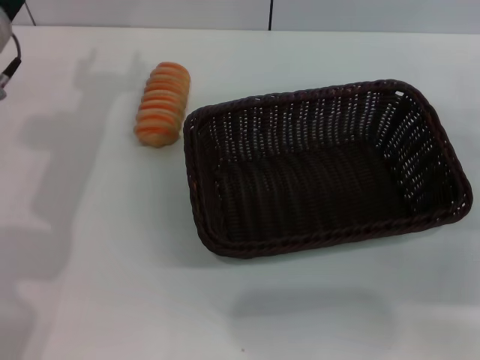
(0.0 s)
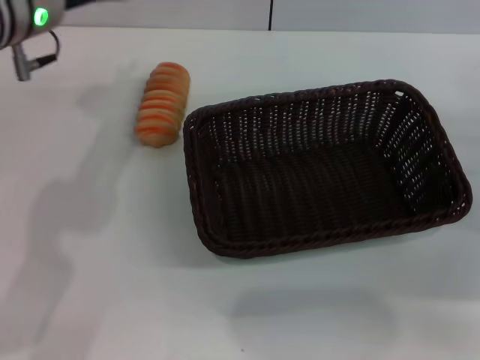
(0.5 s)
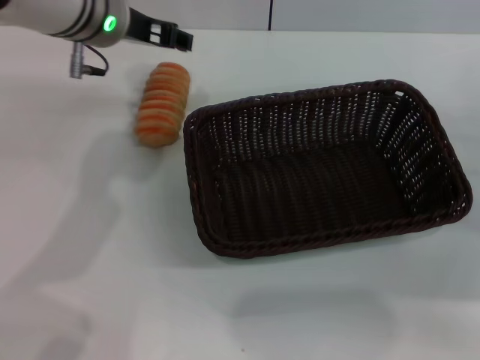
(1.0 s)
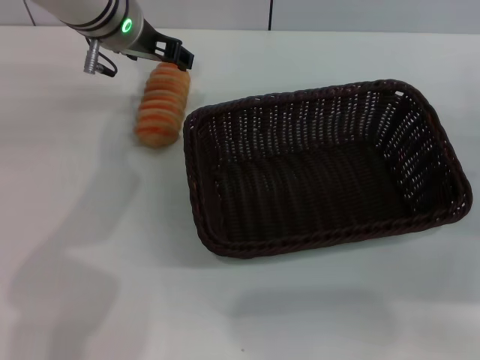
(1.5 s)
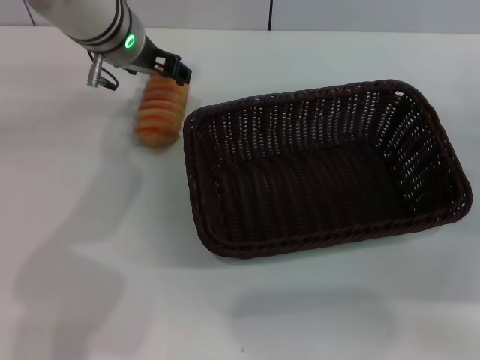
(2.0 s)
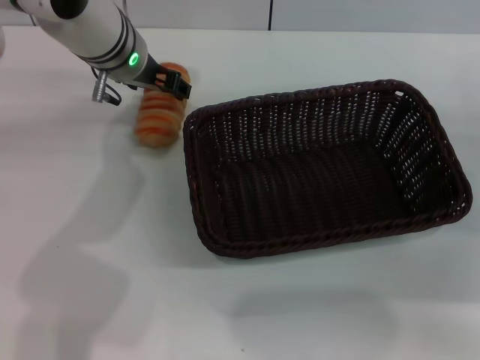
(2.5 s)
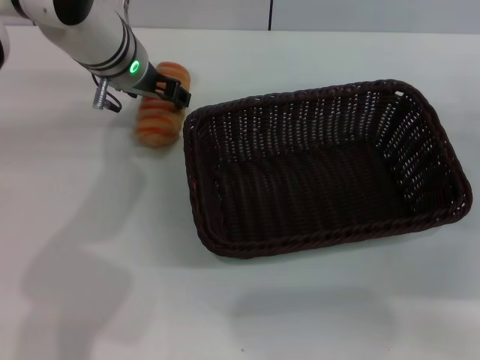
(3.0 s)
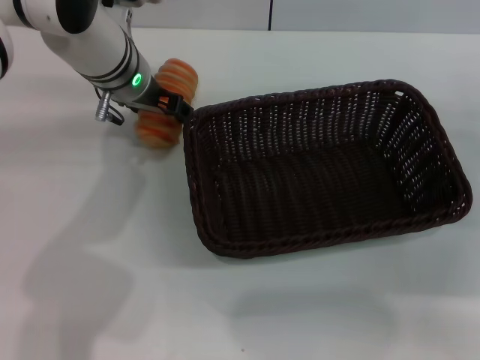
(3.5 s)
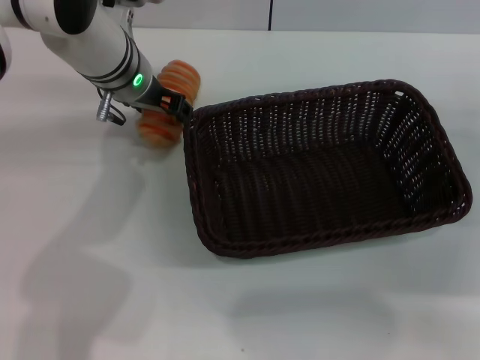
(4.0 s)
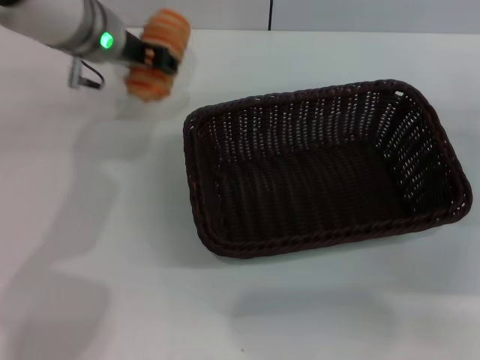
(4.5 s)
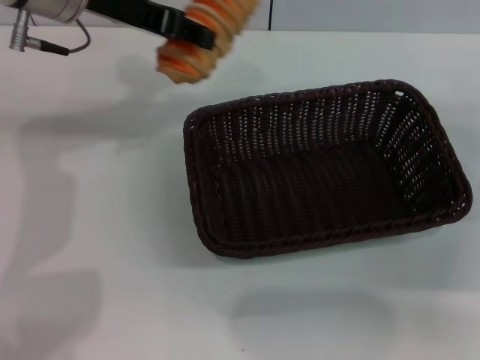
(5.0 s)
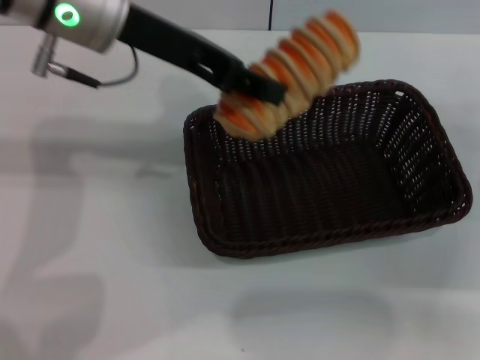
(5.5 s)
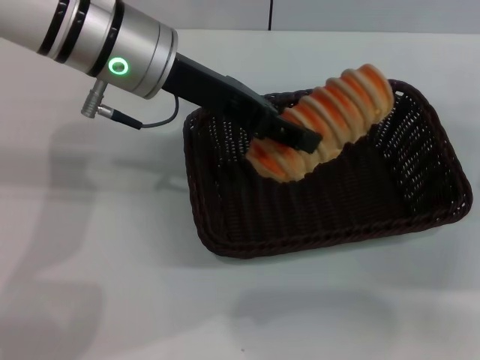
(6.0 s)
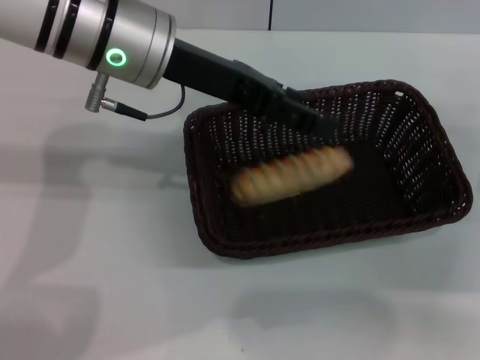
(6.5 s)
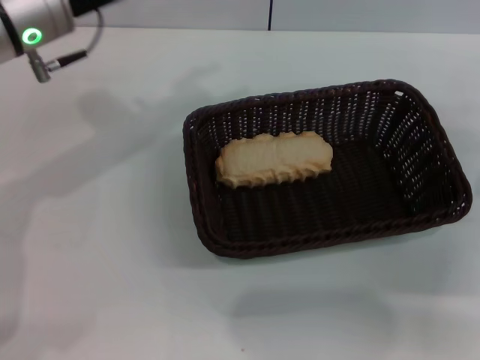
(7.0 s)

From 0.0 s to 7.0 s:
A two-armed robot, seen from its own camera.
Step, from 0.0 s to 4.5 s: Pick up the long bread with the left gripper.
Step, from 5.0 s to 6.5 s: Place the long bread into the dark basket with the left gripper.
From 0.0 s to 2.0 s: The left gripper heads forward and to the right, covering roughly 15 cm.
From 2.0 s to 3.5 s: There are only small adjustments of the grippers.
From 3.5 s to 5.0 s: The left gripper goes about 10 cm upward, and closes up.
From 5.0 s to 7.0 s: The left gripper goes to the right and returns, about 5 cm each way, and opens up.

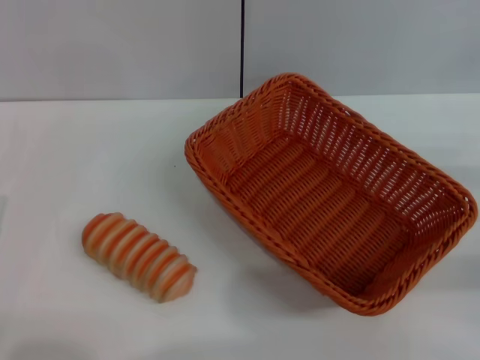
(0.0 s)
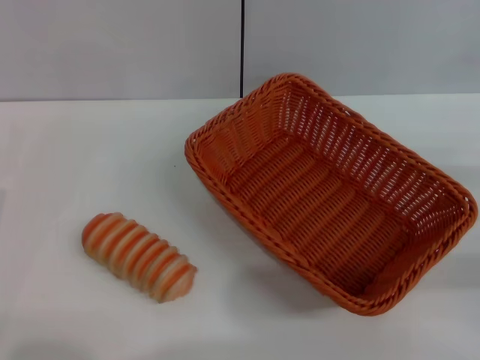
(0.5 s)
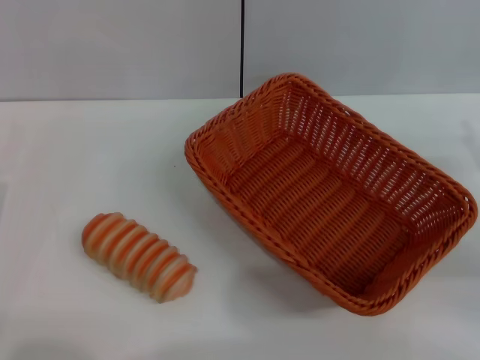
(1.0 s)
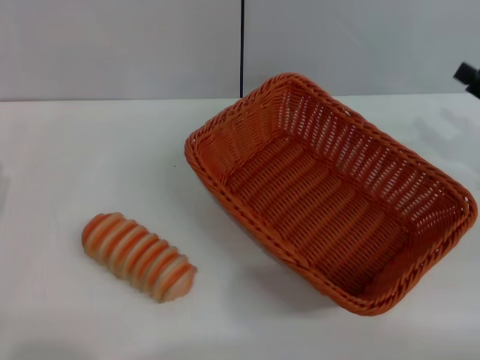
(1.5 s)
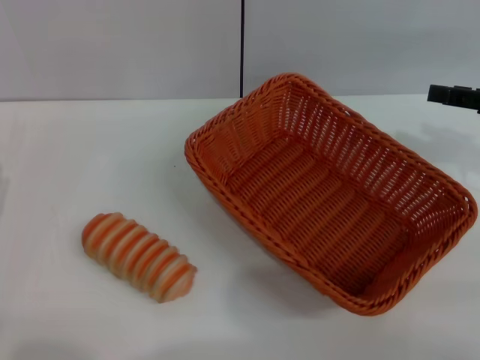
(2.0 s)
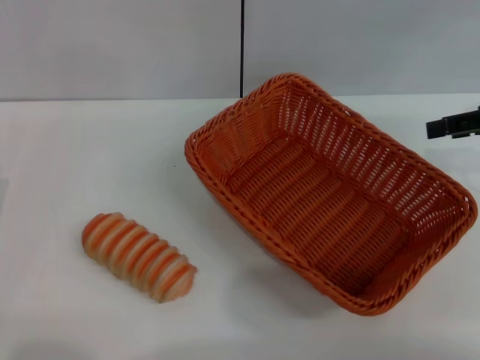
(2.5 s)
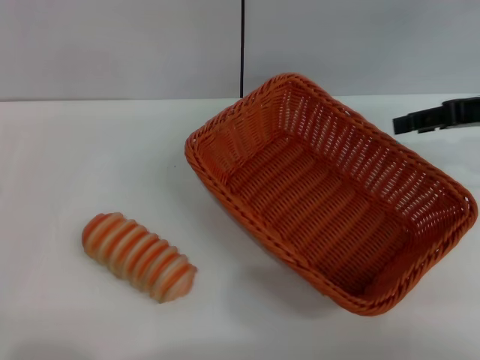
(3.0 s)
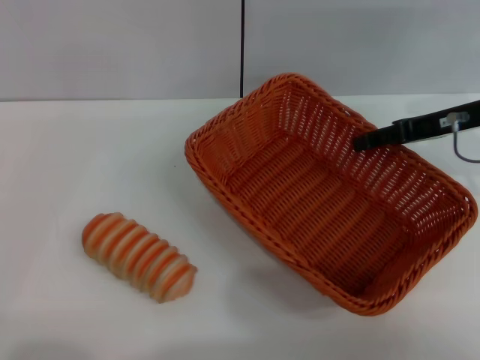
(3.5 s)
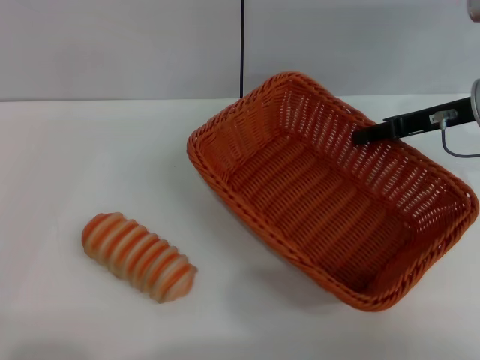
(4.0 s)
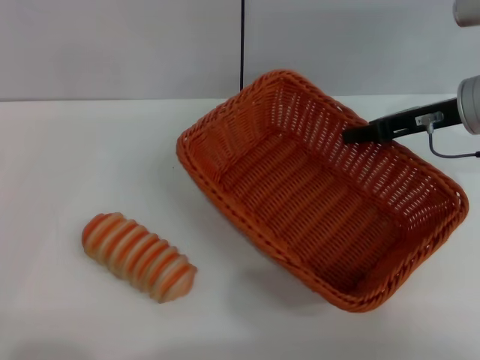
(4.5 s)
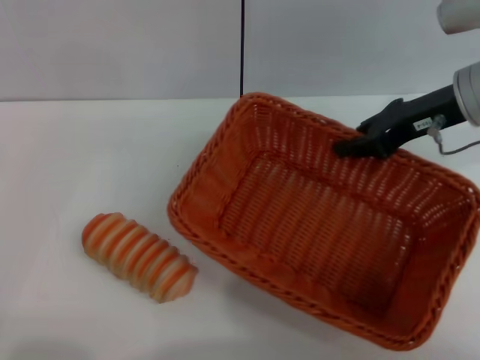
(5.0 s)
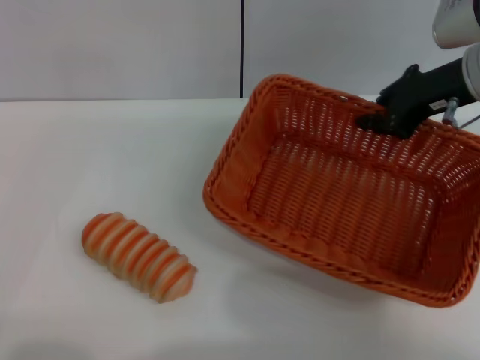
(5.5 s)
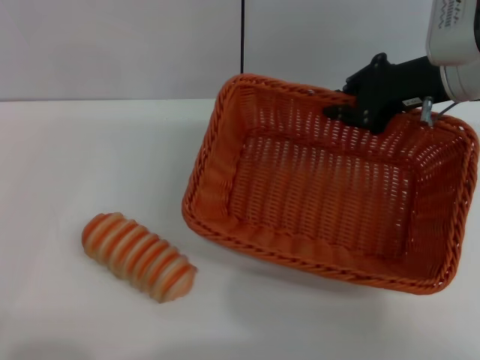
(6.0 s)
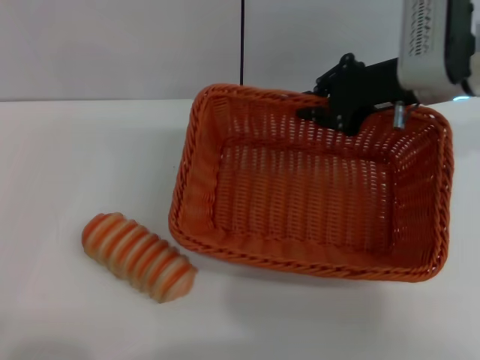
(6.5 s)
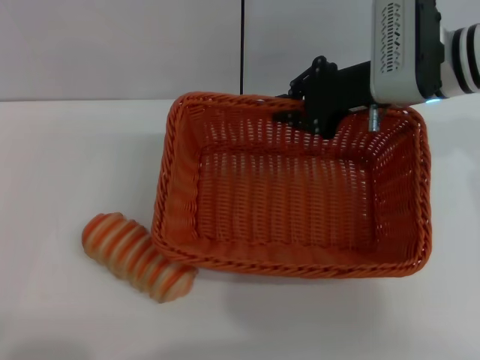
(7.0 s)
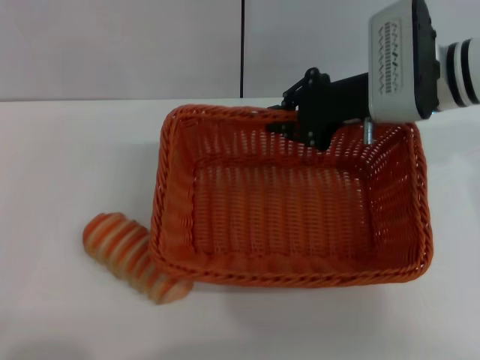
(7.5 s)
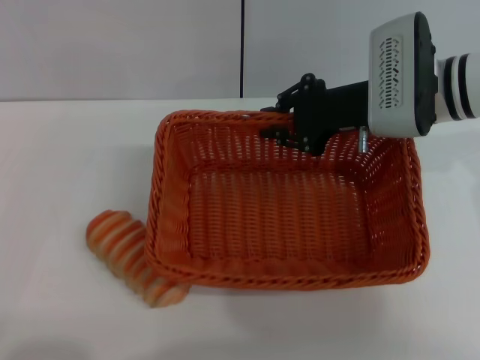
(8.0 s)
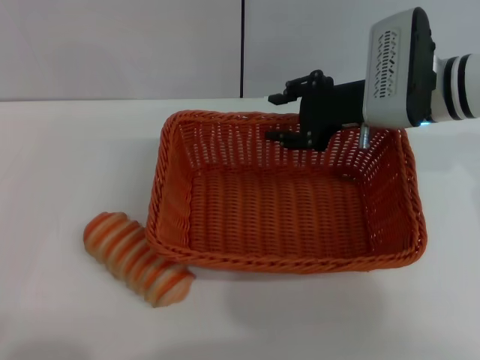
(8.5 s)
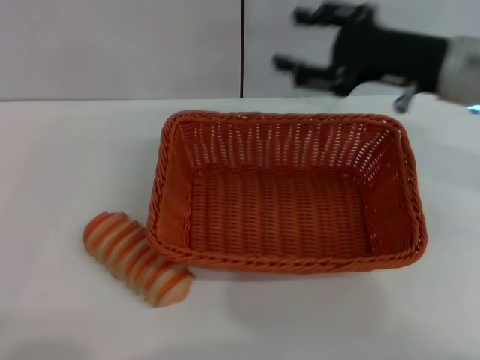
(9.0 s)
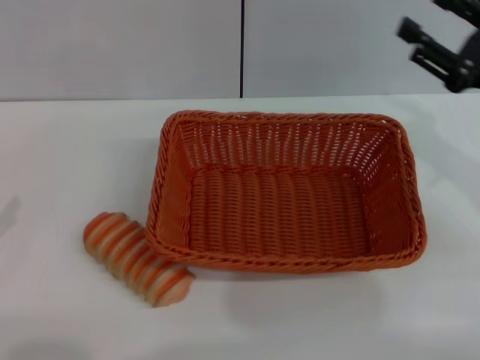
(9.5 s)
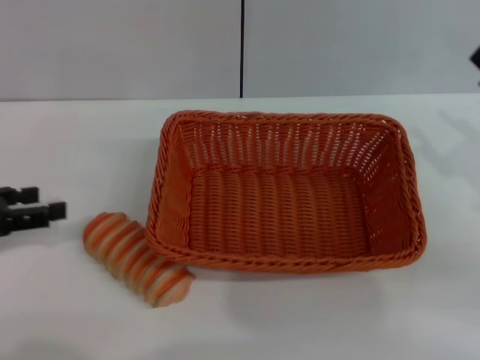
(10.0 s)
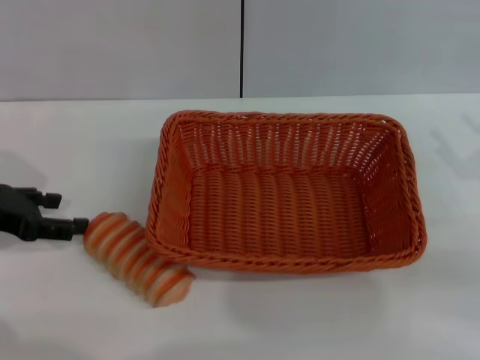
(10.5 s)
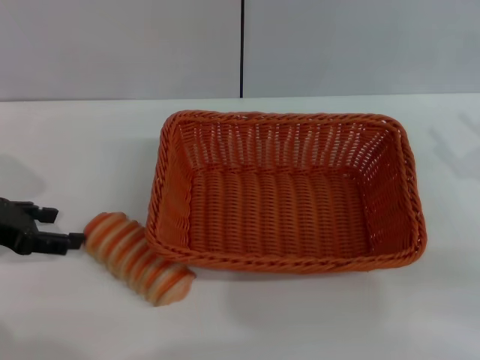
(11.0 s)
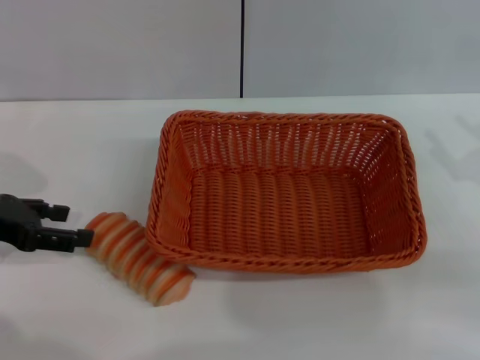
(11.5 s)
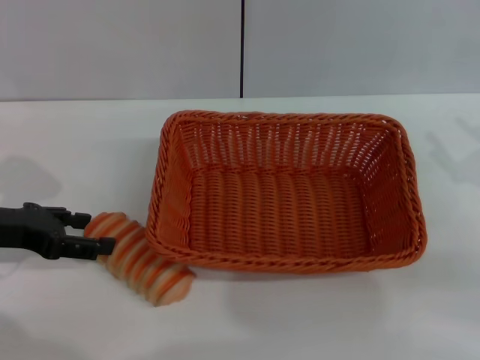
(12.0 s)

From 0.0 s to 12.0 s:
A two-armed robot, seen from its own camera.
Step, from 0.0 s to 5.5 s: Pick up the light basket with the right gripper.
Step, from 6.0 s to 9.0 s: Place the light basket in the center of view with the right gripper.
From 0.0 s to 2.0 s: The right gripper travels upward and forward by some 15 cm.
From 2.0 s to 4.0 s: The right gripper heads to the left and forward, covering some 10 cm.
From 4.0 s to 6.0 s: The right gripper moves some 5 cm, and closes.
From 6.0 s to 8.0 s: The right gripper travels to the left by roughly 5 cm.
From 8.0 s to 10.0 s: The right gripper is displaced to the right and backward by roughly 20 cm, and opens. The left gripper is displaced forward and upward by approximately 15 cm.
From 10.0 s to 12.0 s: The left gripper ends up some 5 cm from where it was.

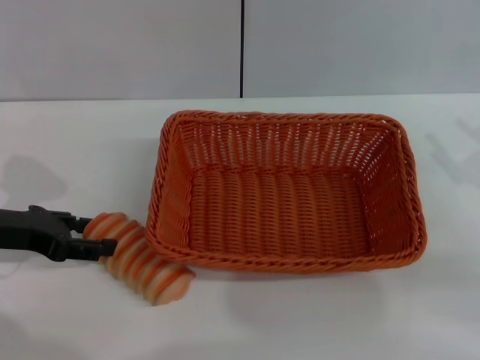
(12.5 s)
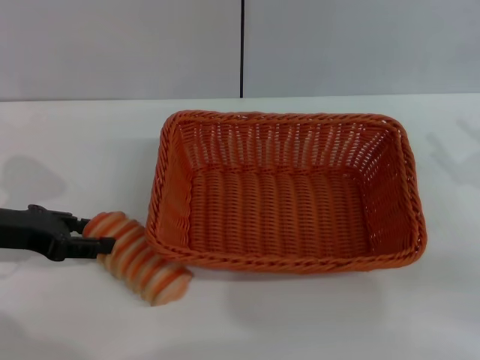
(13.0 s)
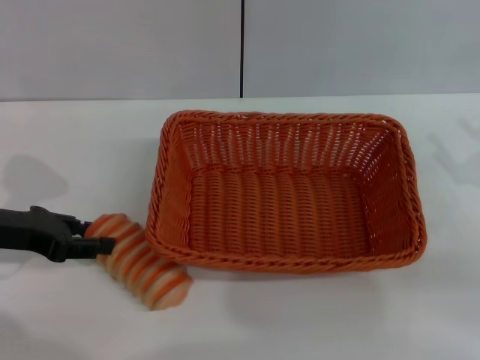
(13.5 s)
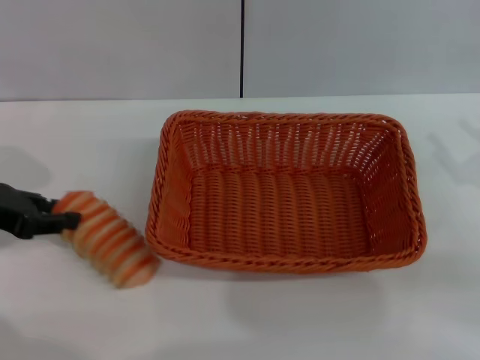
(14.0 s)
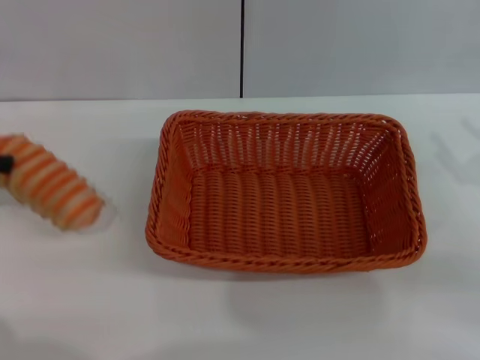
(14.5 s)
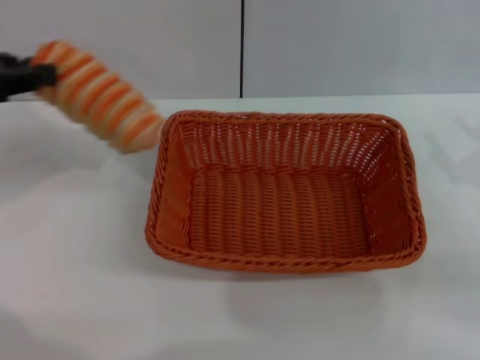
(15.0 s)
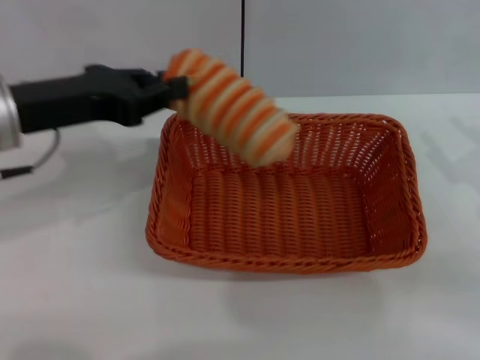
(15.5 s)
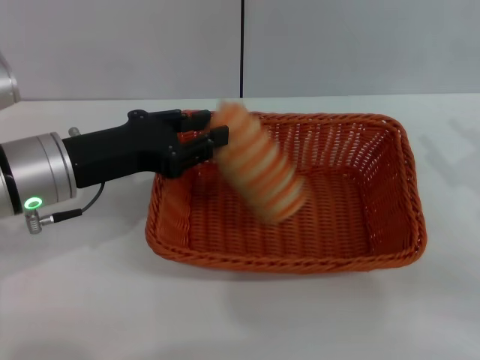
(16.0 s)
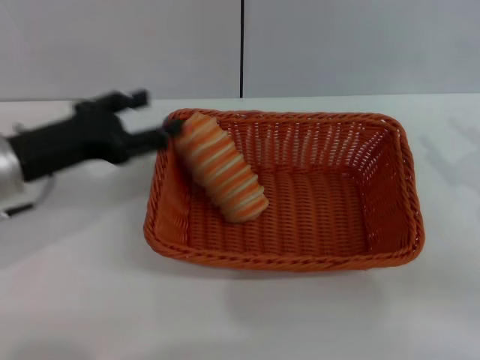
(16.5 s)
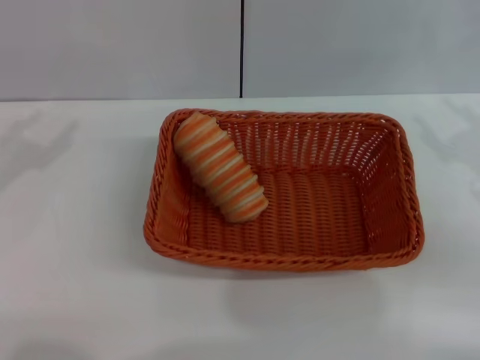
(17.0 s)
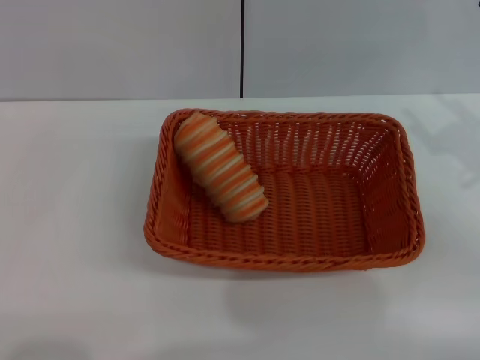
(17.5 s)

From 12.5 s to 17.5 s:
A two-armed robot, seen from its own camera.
Step, from 12.5 s to 14.5 s: Pick up the long bread with the left gripper.
Step, from 15.0 s to 16.5 s: Place the long bread into the light basket with the left gripper.
From 12.5 s to 15.0 s: The left gripper shifts approximately 15 cm upward, and closes.
From 15.0 s to 17.5 s: The right gripper shifts by roughly 5 cm. Meanwhile the left gripper is displaced downward, backward and to the left by approximately 25 cm, and opens its fingers.

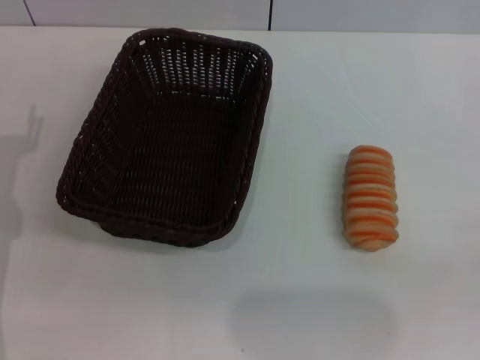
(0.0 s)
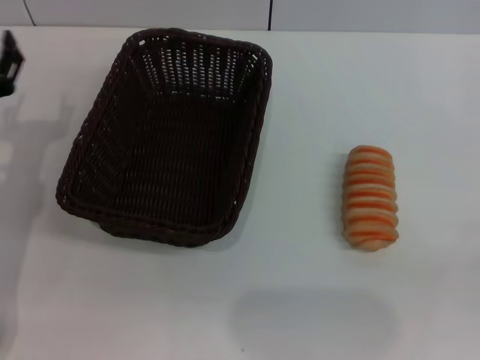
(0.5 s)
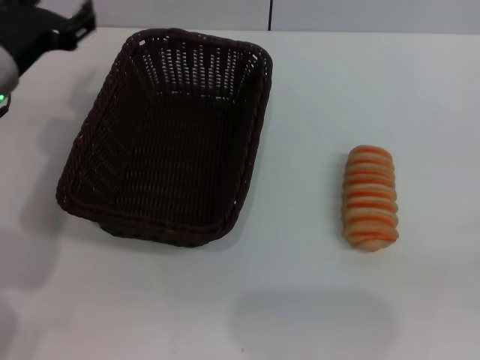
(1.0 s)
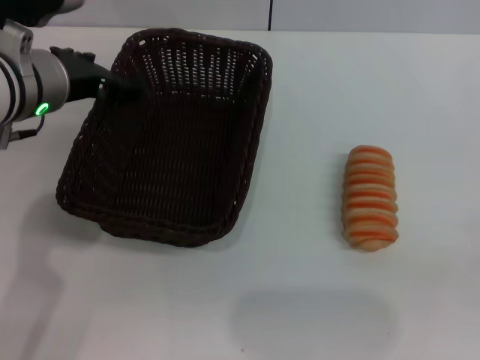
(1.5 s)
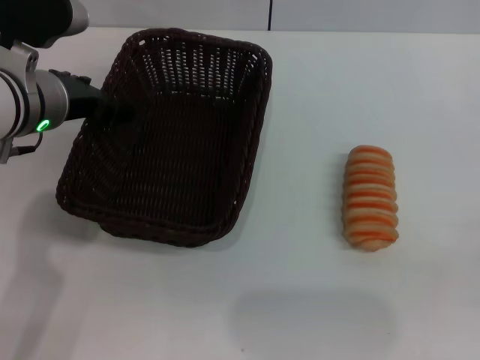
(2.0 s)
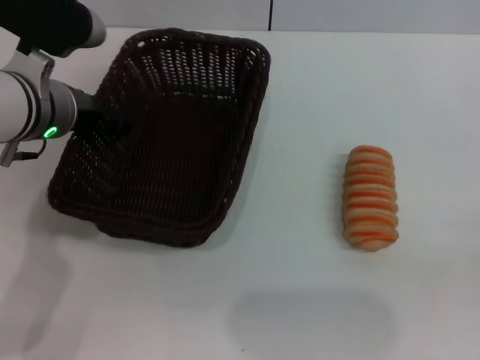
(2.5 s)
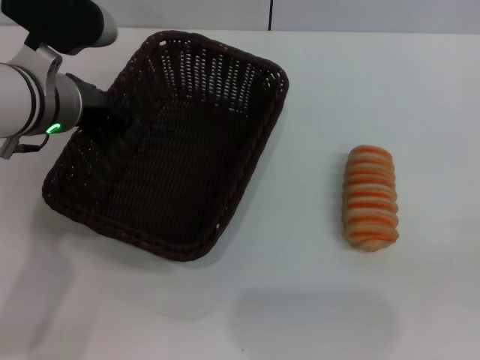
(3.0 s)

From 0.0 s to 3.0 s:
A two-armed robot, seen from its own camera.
From 0.0 s to 1.5 s: The left gripper goes approximately 20 cm upward, to the right and forward.
From 1.5 s to 3.0 s: The left gripper closes up.
